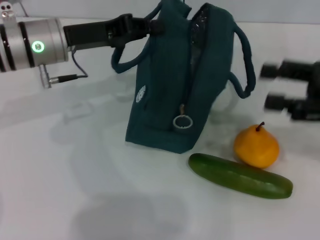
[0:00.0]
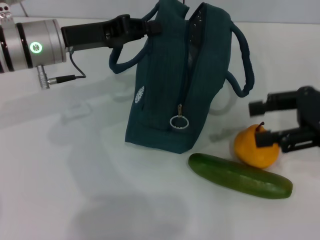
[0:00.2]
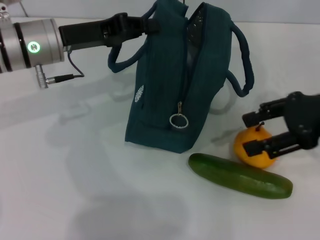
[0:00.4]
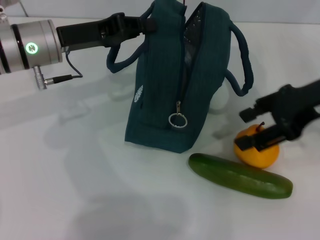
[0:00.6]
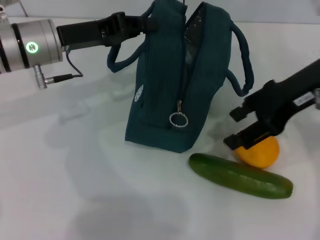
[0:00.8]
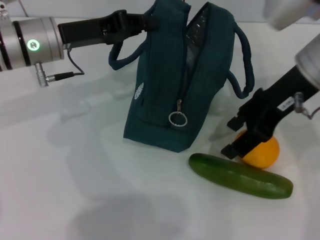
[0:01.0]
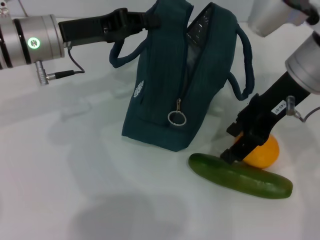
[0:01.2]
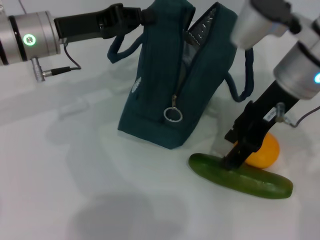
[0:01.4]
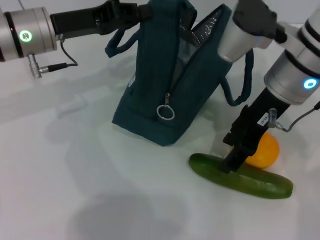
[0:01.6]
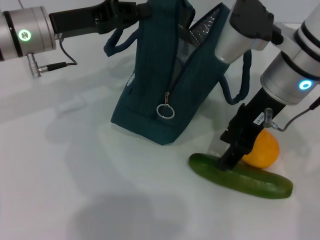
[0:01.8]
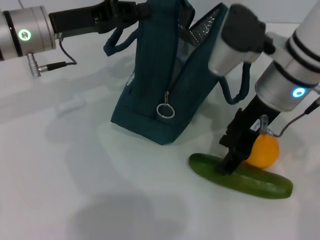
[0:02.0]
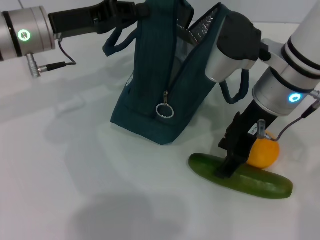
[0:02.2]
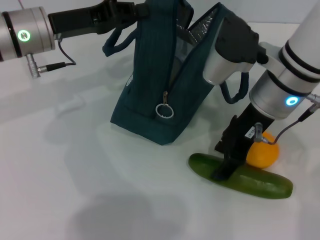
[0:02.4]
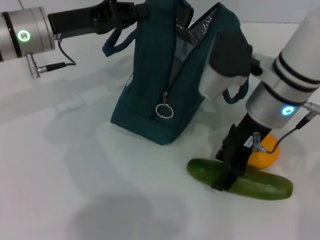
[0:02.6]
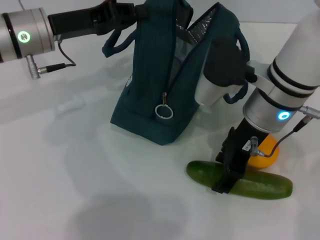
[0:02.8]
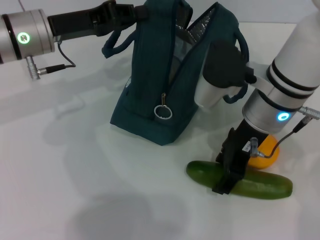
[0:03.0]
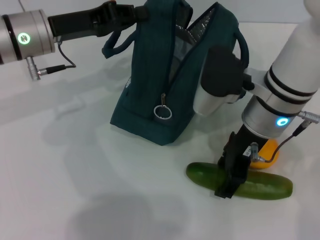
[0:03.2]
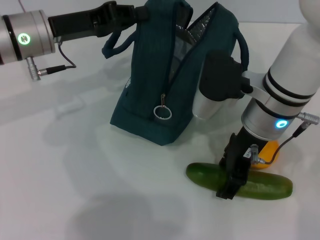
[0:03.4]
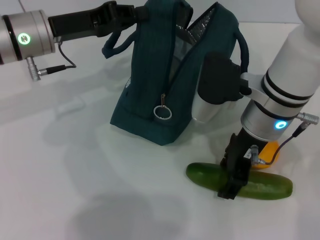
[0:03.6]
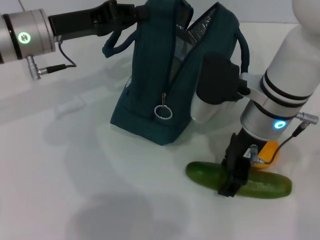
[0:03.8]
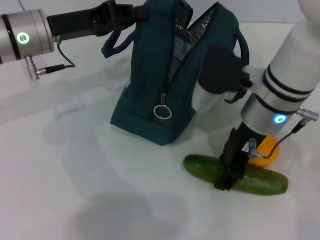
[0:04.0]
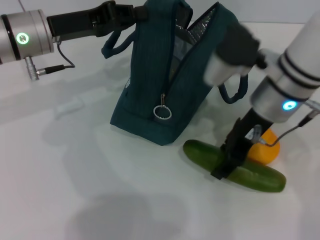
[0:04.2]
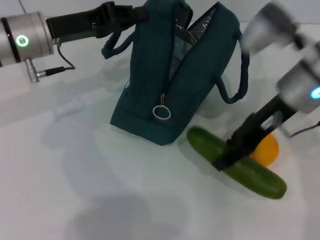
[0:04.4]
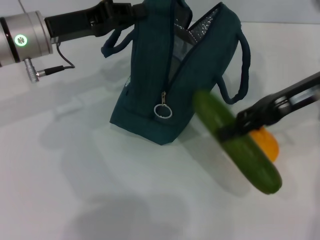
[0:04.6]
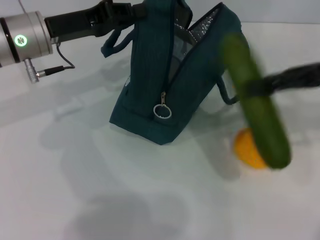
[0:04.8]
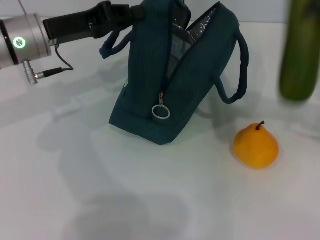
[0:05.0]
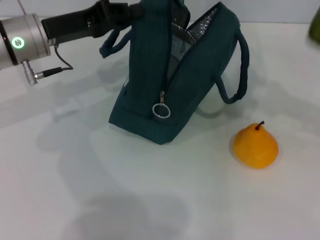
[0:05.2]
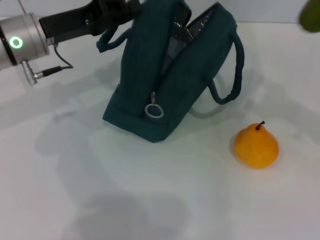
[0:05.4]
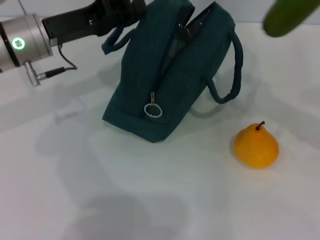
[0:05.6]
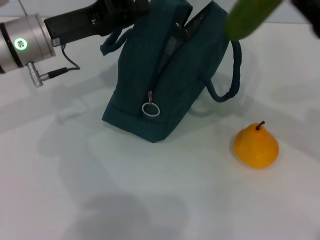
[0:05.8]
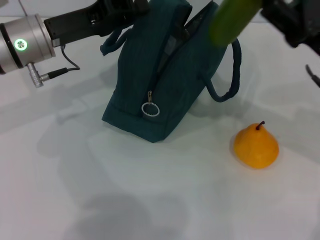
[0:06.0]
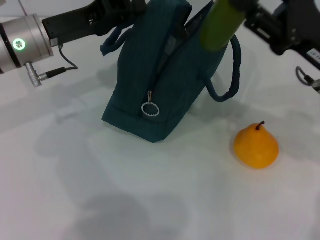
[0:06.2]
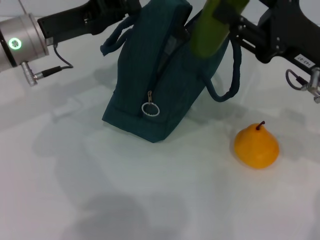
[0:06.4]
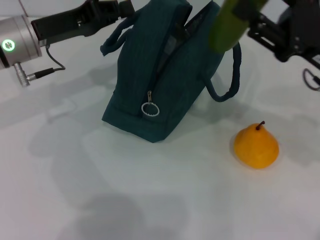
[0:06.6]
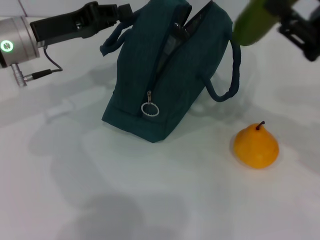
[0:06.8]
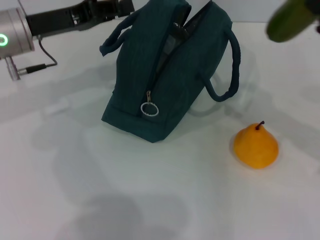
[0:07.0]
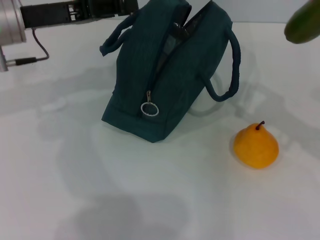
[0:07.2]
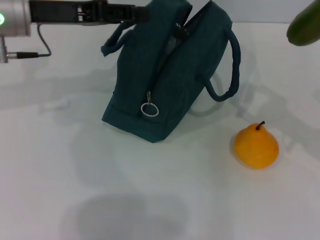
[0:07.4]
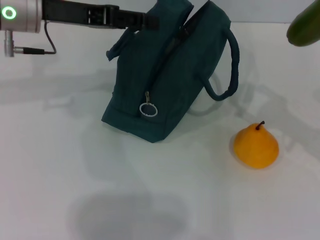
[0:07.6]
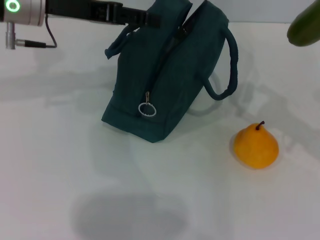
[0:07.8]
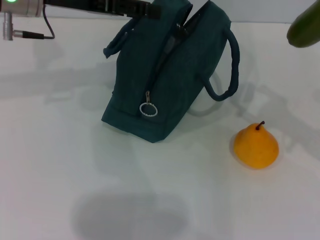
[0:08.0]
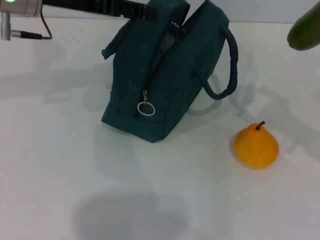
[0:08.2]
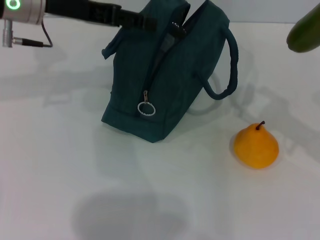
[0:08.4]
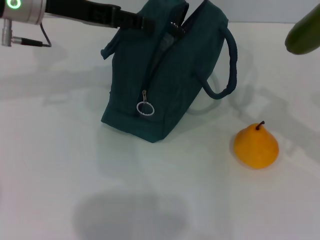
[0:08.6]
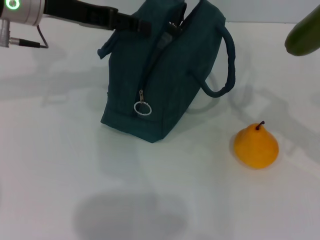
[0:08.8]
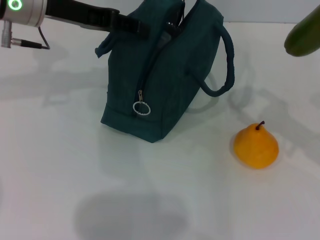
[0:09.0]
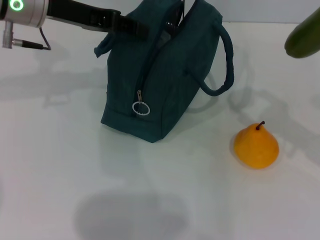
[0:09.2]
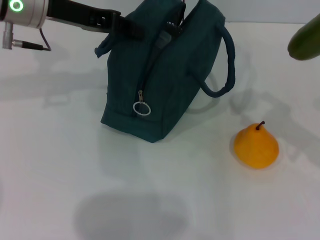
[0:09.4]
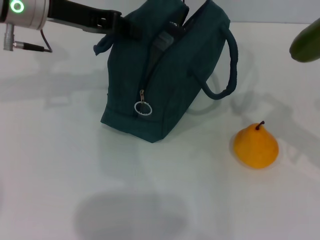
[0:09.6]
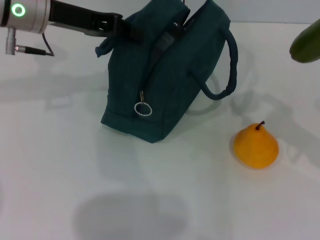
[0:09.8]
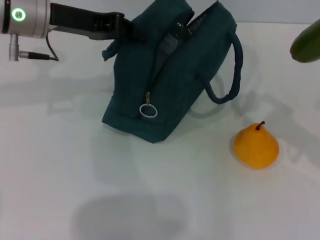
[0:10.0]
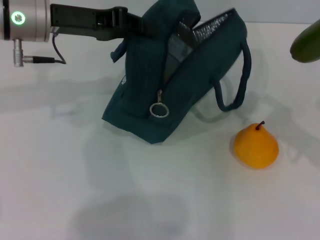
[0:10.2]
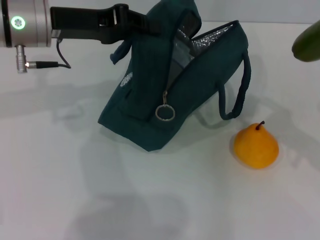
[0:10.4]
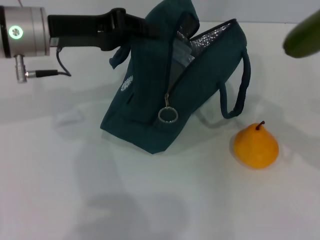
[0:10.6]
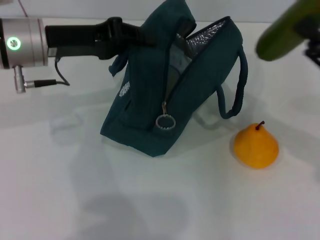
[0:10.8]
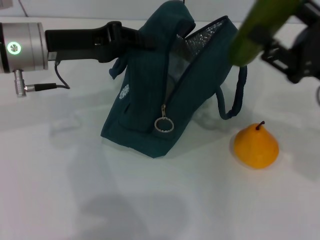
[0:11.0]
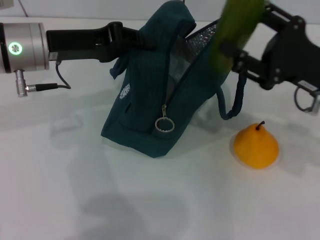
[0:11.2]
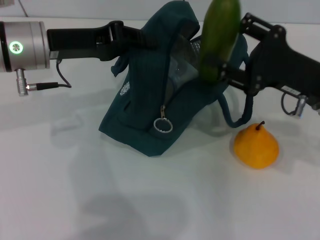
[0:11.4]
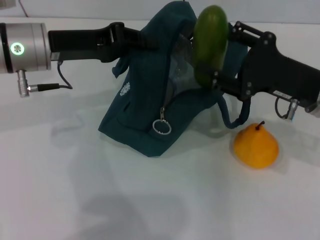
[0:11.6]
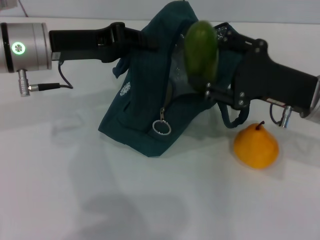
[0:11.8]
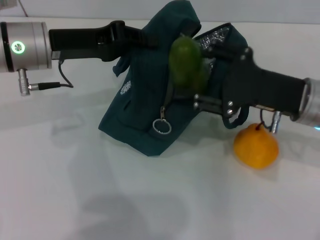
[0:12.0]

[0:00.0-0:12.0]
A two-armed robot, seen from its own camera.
Step, 0:00.0 to 0:03.8: Pick up the cucumber with your right hand.
0:00.0 to 0:01.6: The right gripper goes some 15 cm to the left.
0:01.6 to 0:03.0: The grippers stay close to where they were, moving slightly.
0:03.0 to 0:04.4: The right gripper moves roughly 5 cm.
0:04.4 to 0:06.0: The right gripper is displaced to the right by approximately 5 cm.
0:06.0 to 0:07.6: The left gripper moves upward, about 5 cm, and opens, while the right gripper shifts roughly 10 cm to the right.
0:07.6 to 0:09.0: The grippers stay close to where they were, moving slightly.
0:09.0 to 0:10.4: The left gripper closes up.
0:10.4 to 0:12.0: The right gripper moves to the left and forward, about 15 cm.

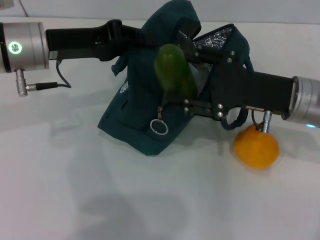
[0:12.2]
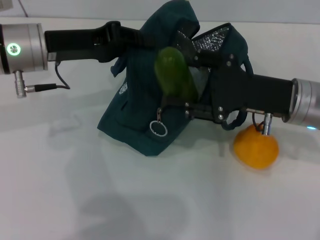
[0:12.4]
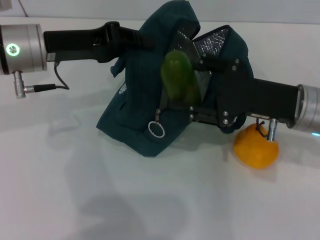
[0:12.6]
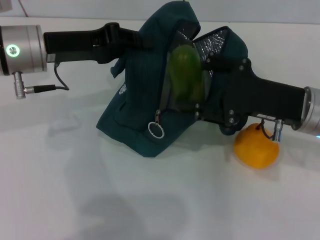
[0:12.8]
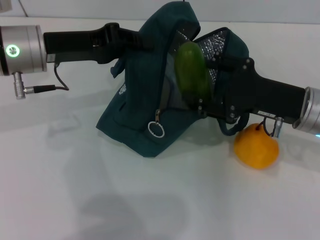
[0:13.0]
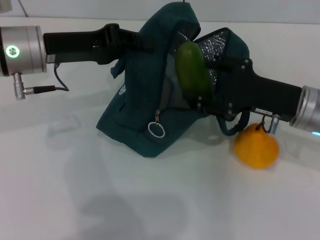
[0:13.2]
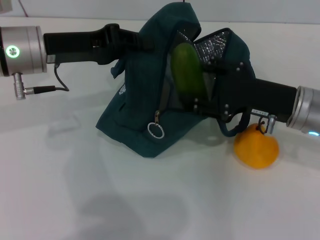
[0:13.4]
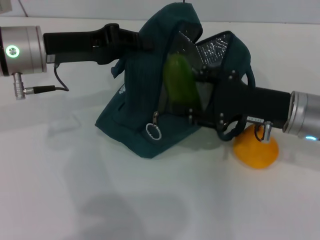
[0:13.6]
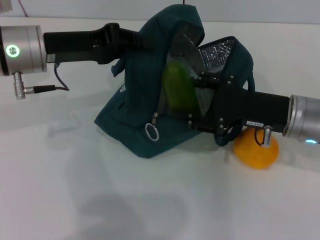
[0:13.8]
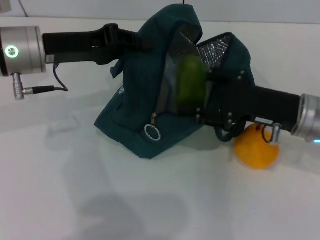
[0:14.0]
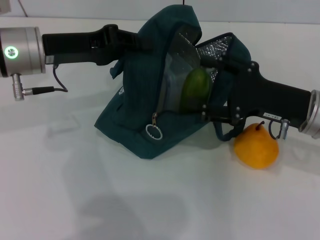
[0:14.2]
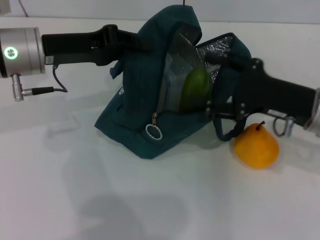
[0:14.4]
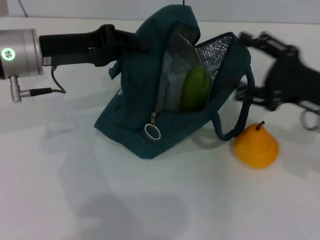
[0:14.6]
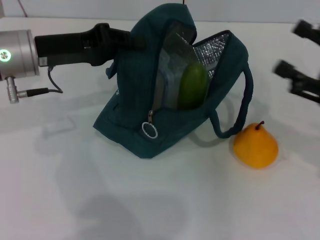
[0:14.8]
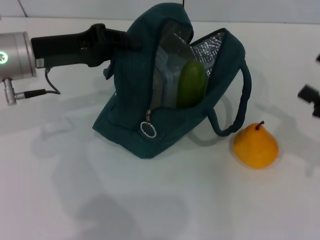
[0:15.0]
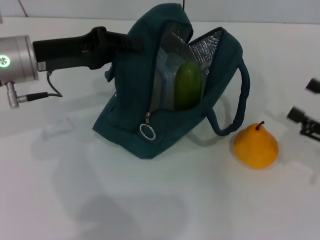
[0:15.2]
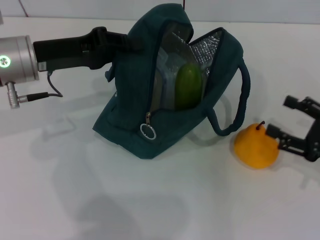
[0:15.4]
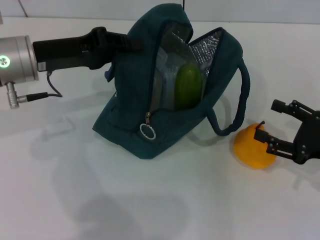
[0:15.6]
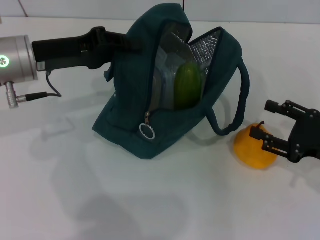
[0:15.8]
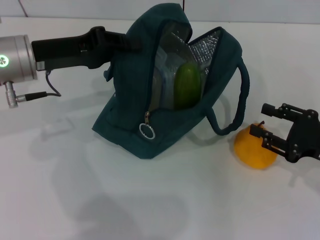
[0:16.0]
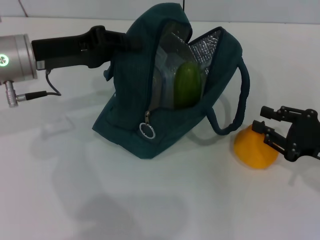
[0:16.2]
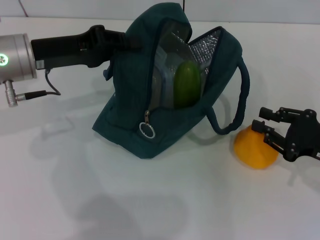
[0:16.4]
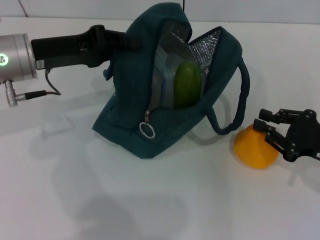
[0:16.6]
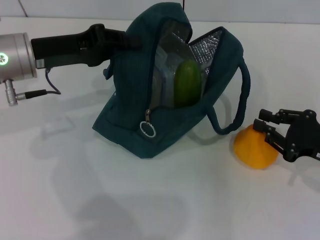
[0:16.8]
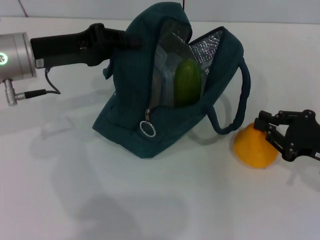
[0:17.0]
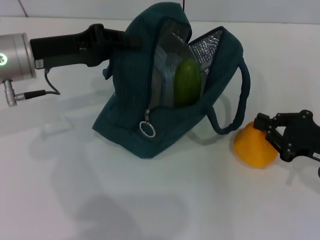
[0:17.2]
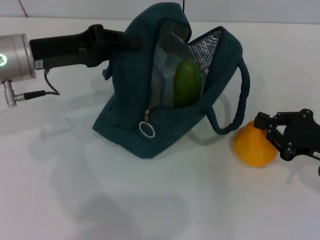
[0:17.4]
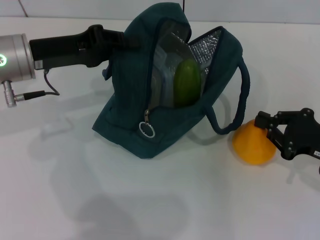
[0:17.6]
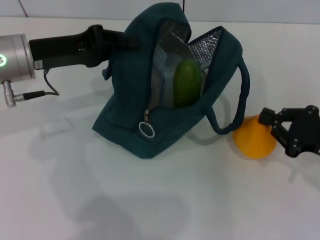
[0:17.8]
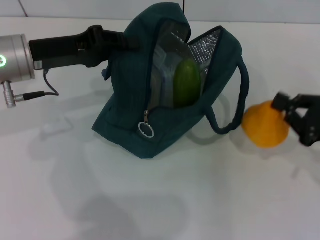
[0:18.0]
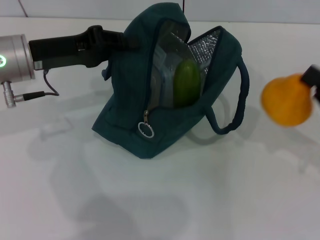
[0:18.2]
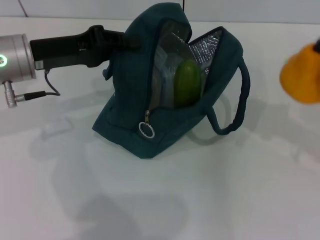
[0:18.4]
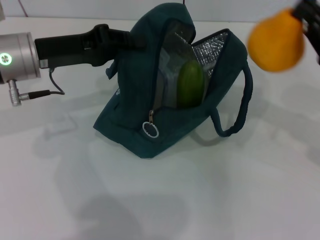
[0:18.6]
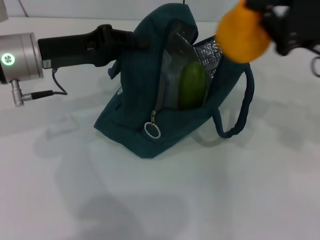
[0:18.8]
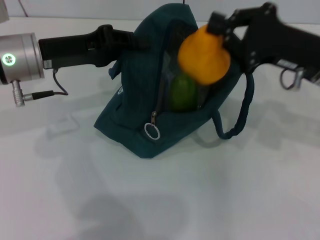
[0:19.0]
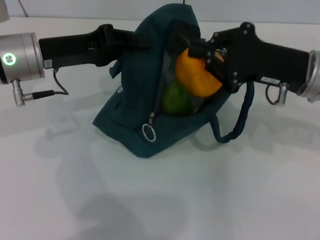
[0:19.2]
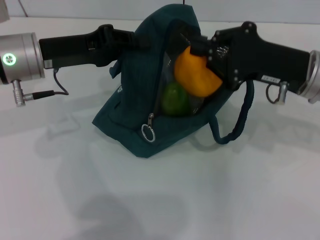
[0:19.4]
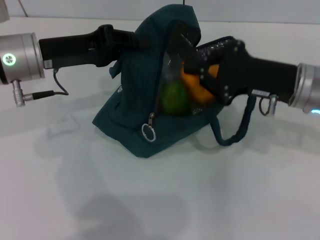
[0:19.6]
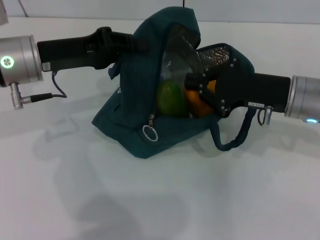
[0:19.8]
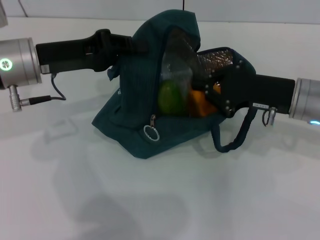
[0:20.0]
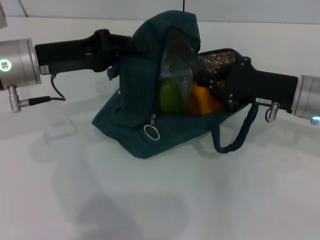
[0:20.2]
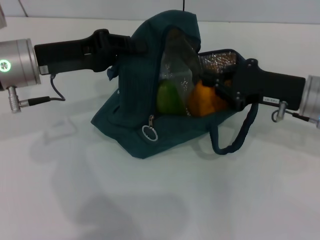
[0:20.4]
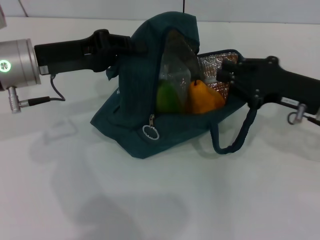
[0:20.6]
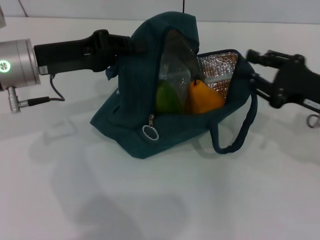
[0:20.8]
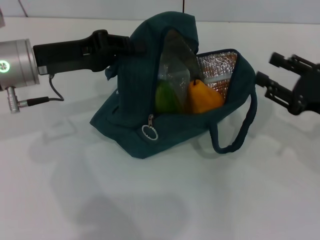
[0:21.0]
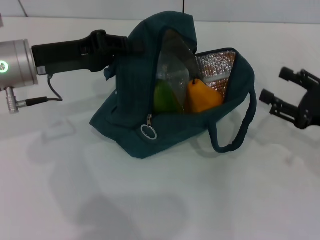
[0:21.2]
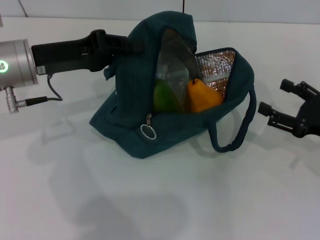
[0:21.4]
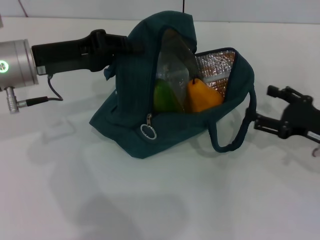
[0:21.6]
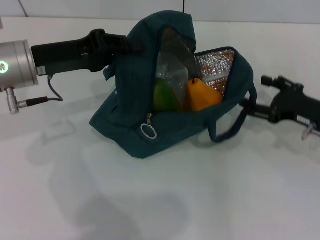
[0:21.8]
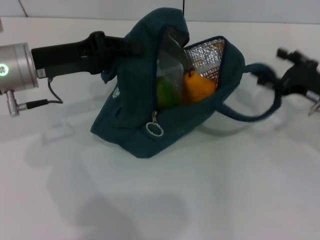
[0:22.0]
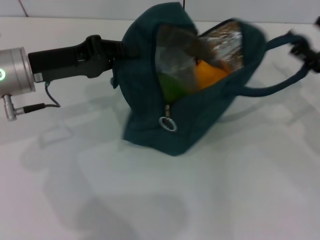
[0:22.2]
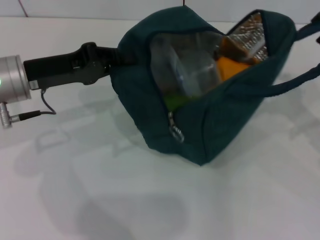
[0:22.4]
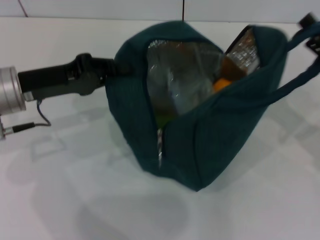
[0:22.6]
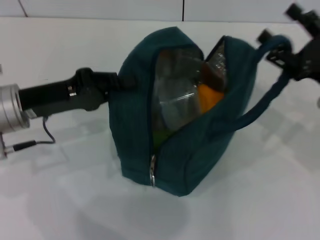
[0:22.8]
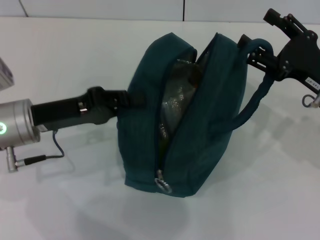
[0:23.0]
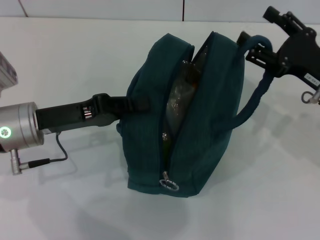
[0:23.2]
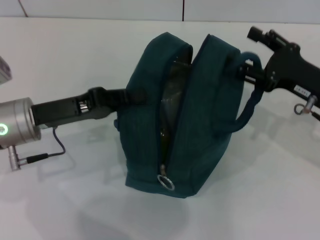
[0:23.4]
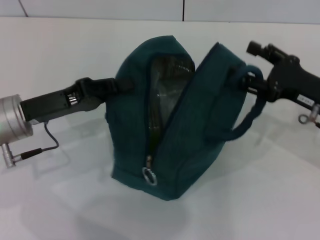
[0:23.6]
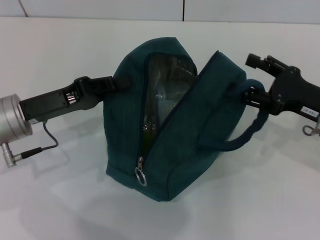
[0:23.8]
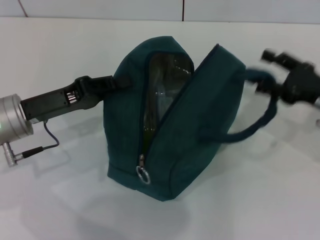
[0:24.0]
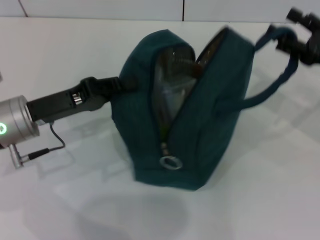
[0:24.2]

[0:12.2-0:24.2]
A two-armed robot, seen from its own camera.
Step, 0:12.2 to 0:14.4: Put the cucumber into the lunch bag with your right hand.
Step, 0:14.6 to 0:17.2: Grab the pear with your right hand.
0:12.2 to 0:13.8: The grippers make only small movements.
0:13.8 to 0:15.2: The right gripper shifts approximately 15 cm to the right and backward.
0:15.2 to 0:16.6: The right gripper closes its fingers.
0:16.6 to 0:18.2: The grippers move only a little.
0:18.2 to 0:19.8: The right gripper travels to the left and forward by approximately 15 cm.
0:19.8 to 0:21.2: The right gripper moves to the right and backward, about 10 cm, and opens up.
0:21.2 to 0:22.6: The right gripper opens up.
